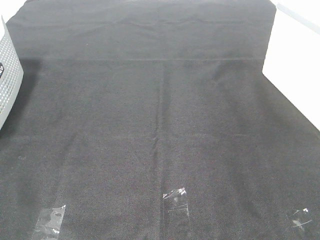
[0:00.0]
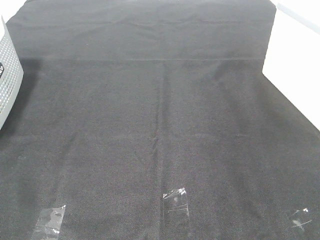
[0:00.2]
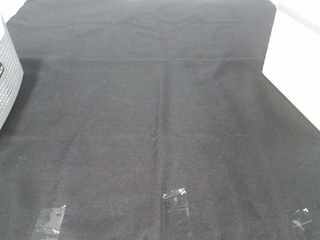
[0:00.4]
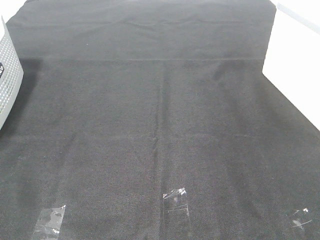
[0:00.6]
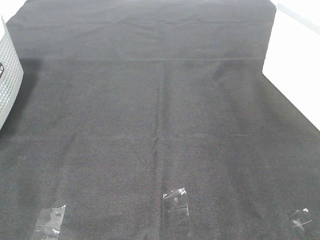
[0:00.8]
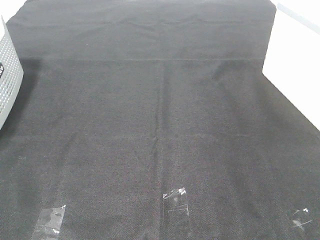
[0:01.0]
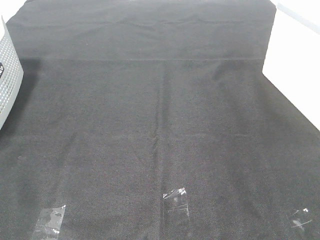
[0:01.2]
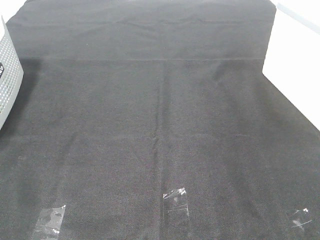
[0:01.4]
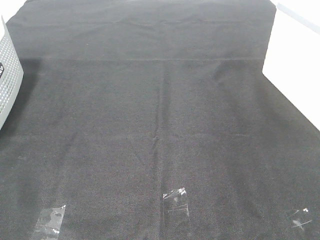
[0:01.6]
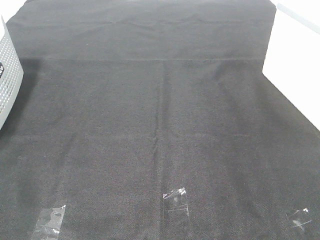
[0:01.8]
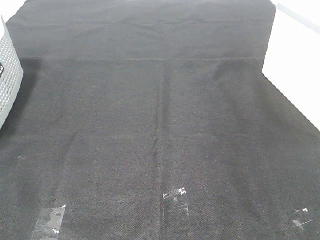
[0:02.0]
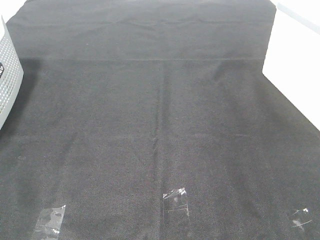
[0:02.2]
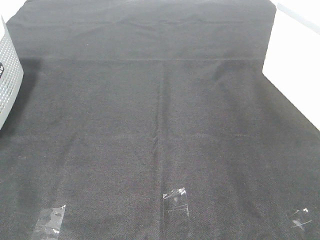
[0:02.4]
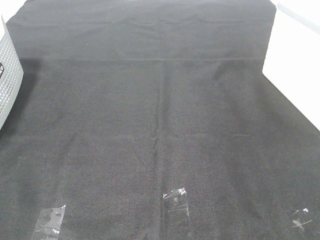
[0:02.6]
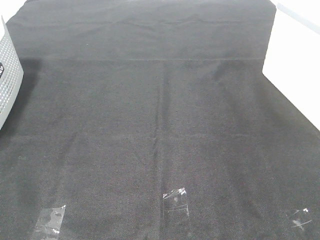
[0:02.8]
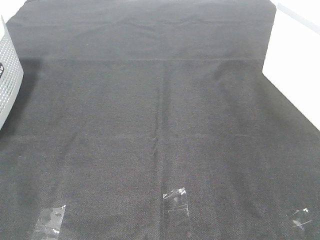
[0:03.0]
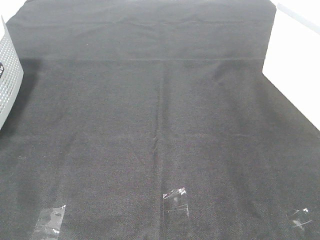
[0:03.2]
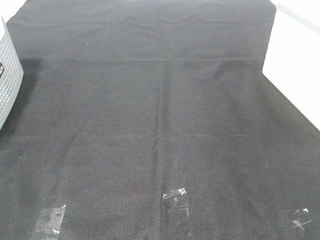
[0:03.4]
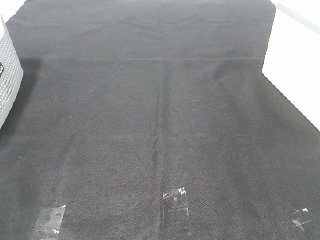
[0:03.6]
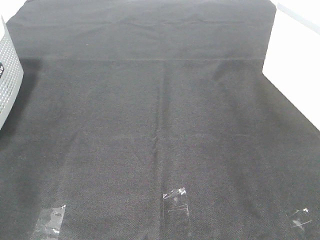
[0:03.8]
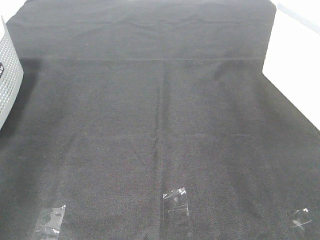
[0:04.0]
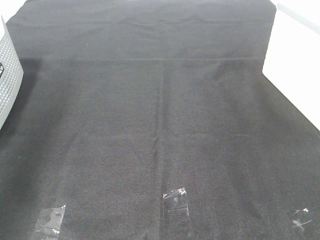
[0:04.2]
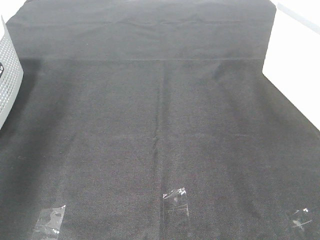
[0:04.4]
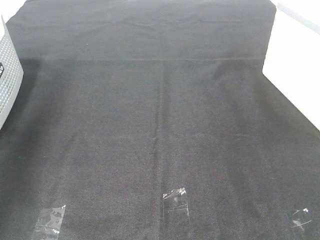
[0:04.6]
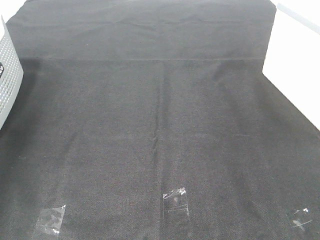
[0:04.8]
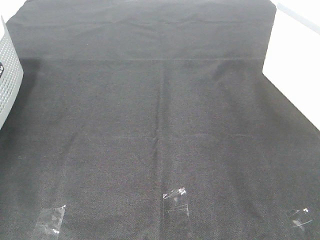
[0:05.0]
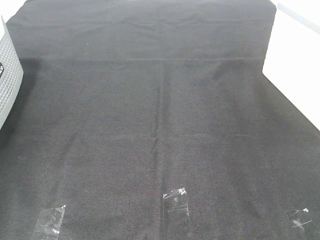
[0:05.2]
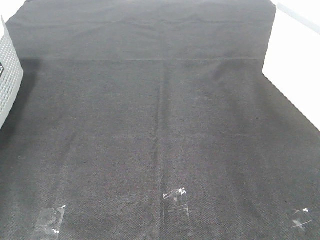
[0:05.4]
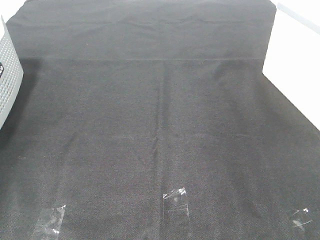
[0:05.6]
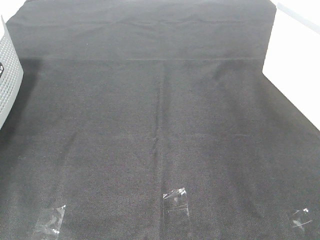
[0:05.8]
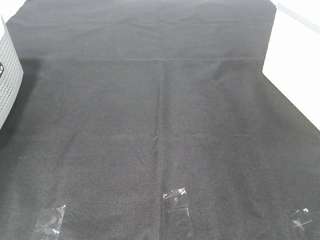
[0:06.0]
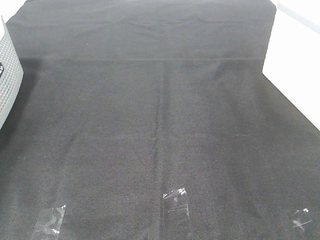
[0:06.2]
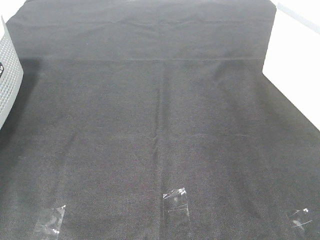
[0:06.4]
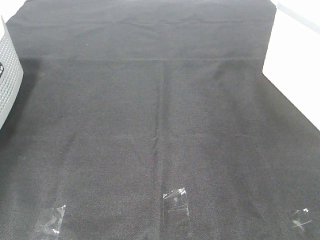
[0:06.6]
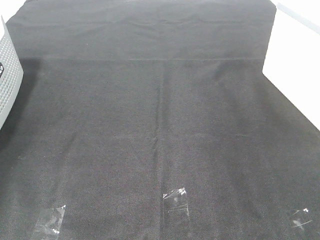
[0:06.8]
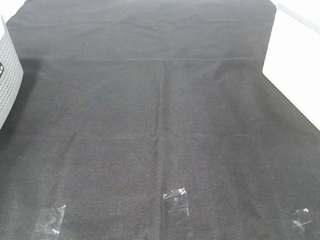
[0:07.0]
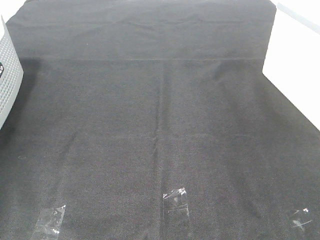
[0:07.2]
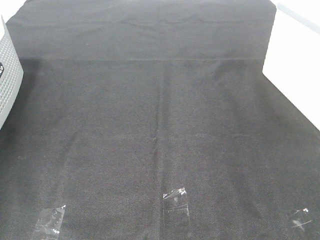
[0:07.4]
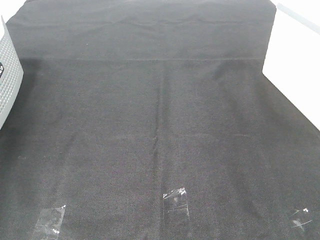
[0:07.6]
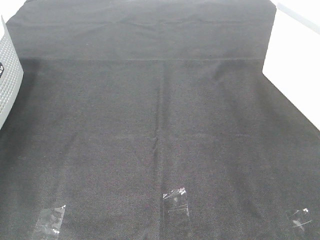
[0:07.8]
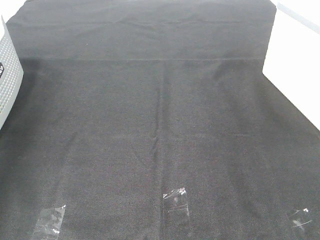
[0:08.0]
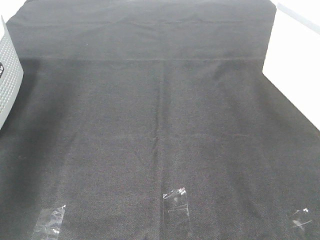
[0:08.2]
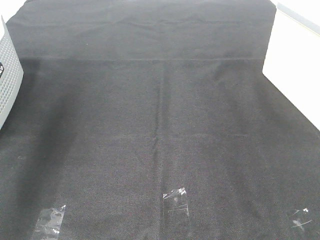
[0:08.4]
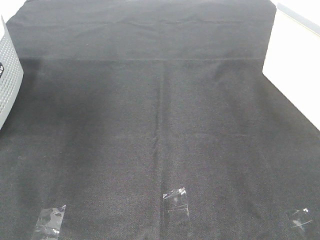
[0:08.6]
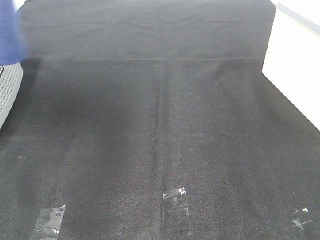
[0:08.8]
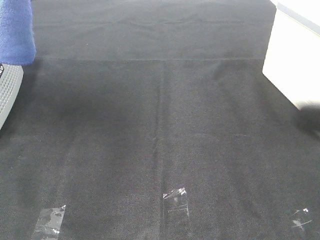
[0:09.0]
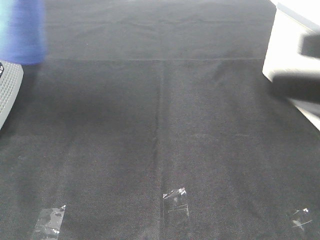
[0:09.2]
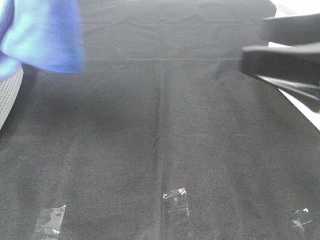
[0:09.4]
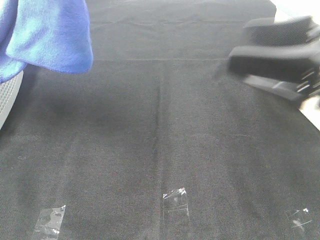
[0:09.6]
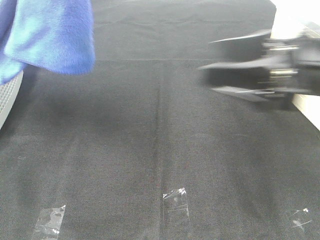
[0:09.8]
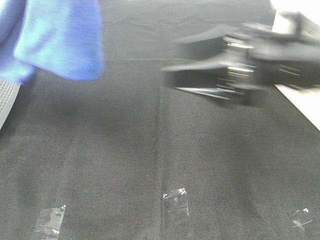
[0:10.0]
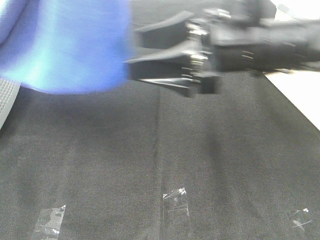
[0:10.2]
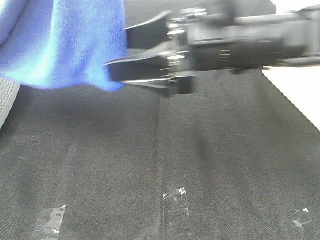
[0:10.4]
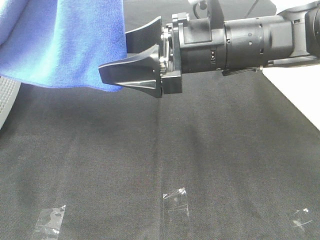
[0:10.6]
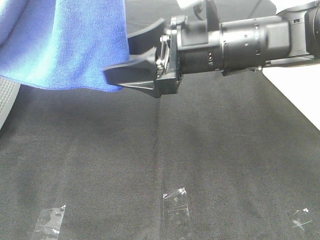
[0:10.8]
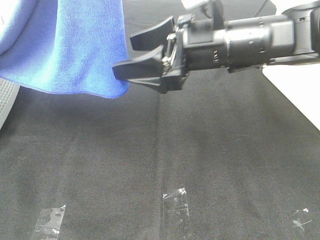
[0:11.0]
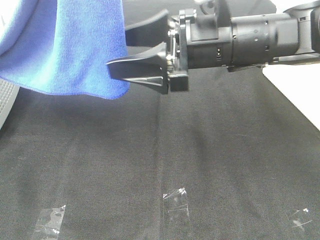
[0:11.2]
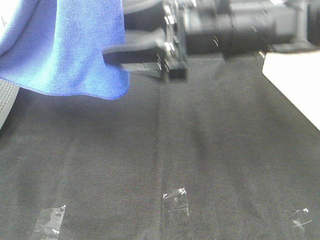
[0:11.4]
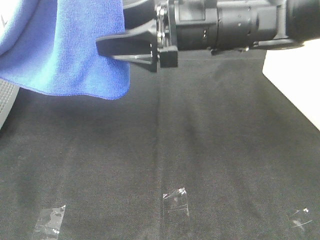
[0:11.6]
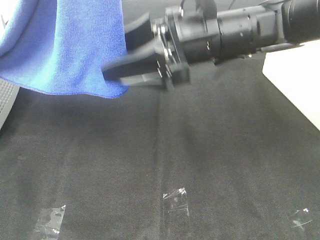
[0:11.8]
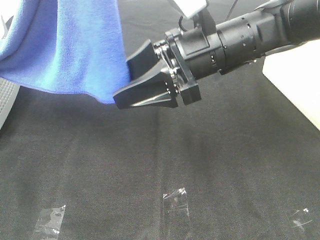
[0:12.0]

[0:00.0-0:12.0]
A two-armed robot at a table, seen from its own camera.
Task of the whole recording: Remove the towel and place it.
0:00.0 to 0:03.0: Both grippers stay put.
0:03.0 to 0:04.4: The left gripper travels forward and upward by some 30 cm.
0:04.4 to 0:06.0: The left gripper shifts about 35 cm downward, forward and to the left.
0:07.6 to 0:09.0: The left gripper shifts roughly 30 cm to the right, upward and backward; the right gripper goes approximately 10 cm forward.
0:09.0 to 0:10.4: The right gripper is displaced forward and to the left by about 25 cm.

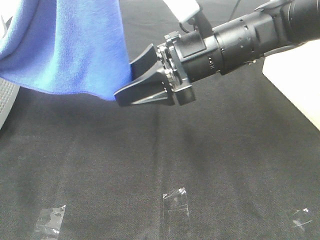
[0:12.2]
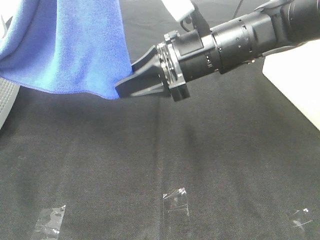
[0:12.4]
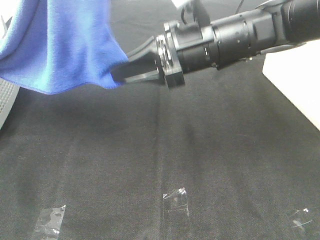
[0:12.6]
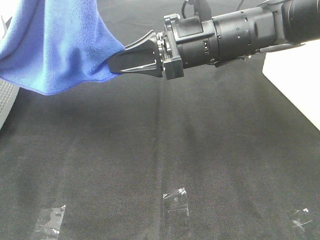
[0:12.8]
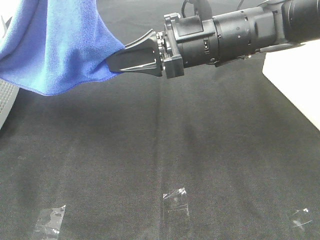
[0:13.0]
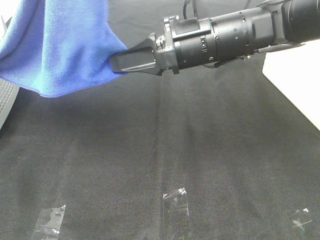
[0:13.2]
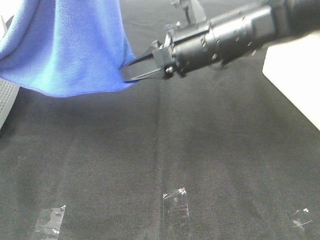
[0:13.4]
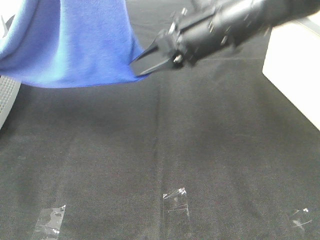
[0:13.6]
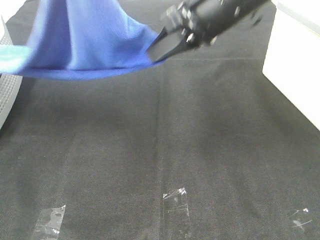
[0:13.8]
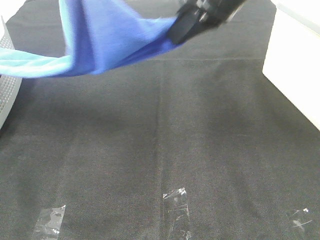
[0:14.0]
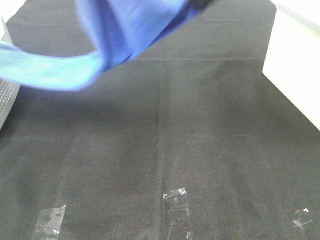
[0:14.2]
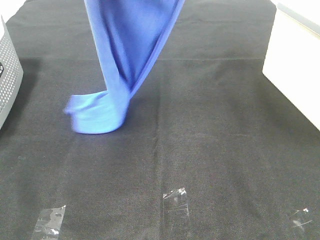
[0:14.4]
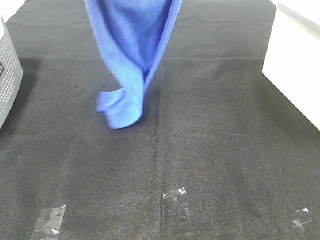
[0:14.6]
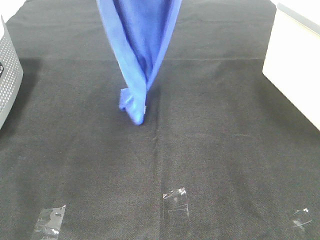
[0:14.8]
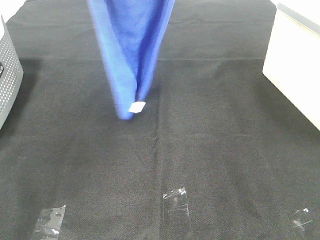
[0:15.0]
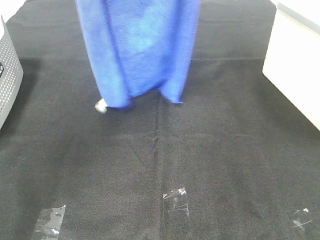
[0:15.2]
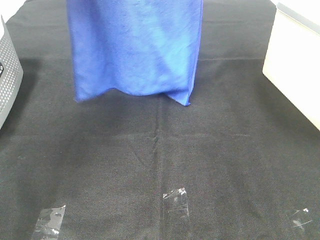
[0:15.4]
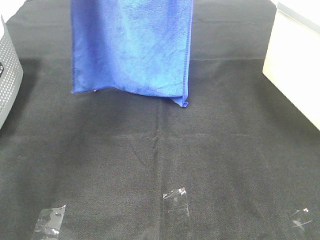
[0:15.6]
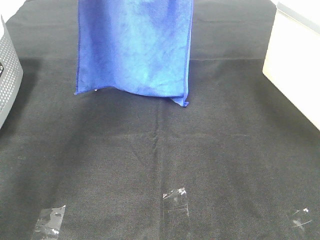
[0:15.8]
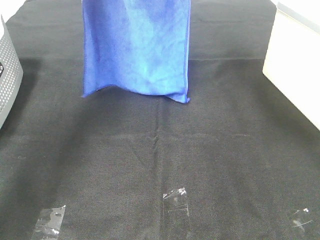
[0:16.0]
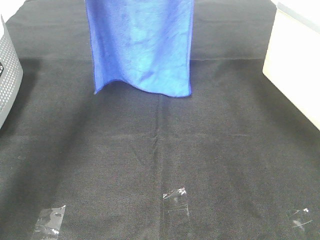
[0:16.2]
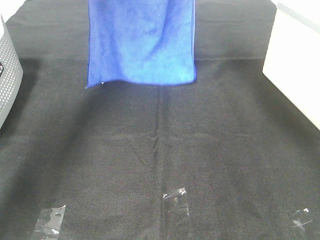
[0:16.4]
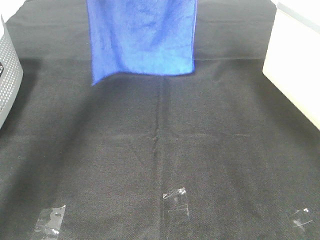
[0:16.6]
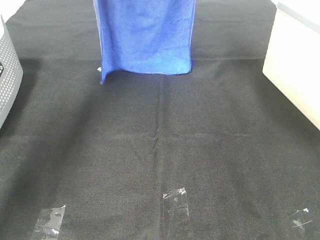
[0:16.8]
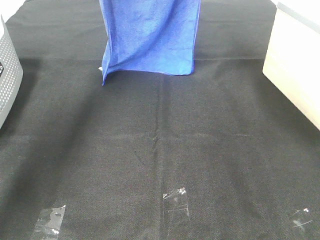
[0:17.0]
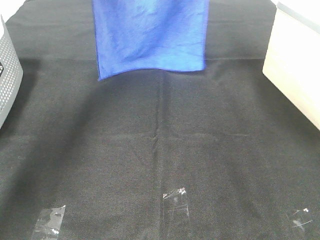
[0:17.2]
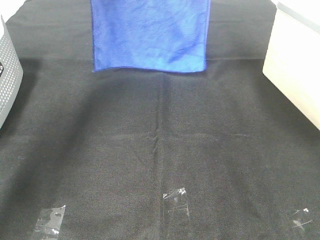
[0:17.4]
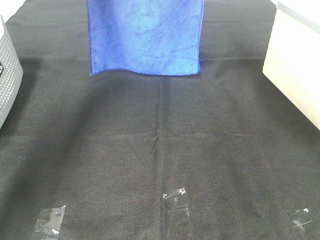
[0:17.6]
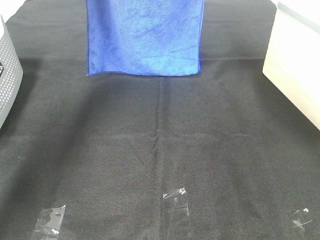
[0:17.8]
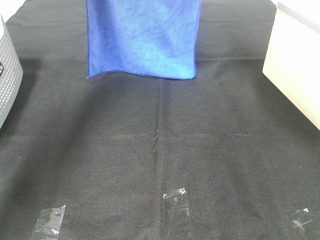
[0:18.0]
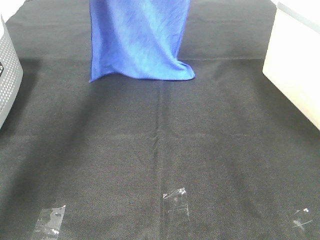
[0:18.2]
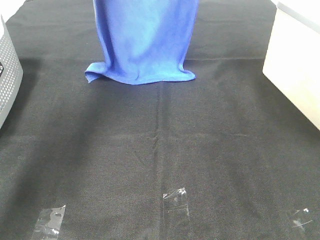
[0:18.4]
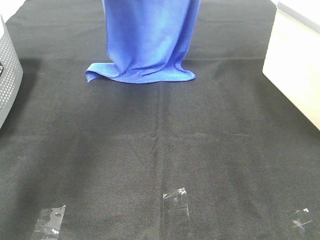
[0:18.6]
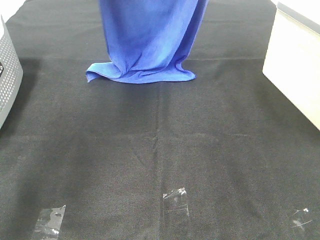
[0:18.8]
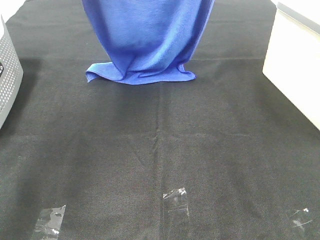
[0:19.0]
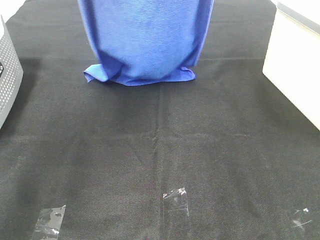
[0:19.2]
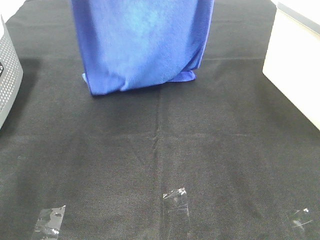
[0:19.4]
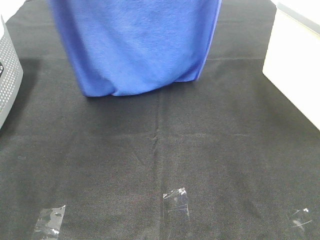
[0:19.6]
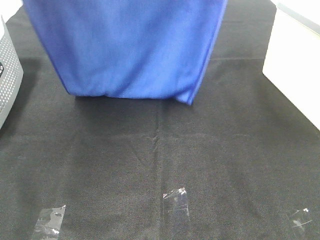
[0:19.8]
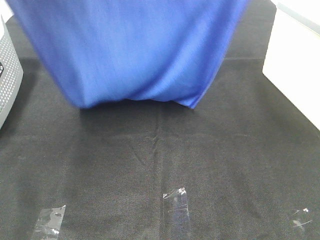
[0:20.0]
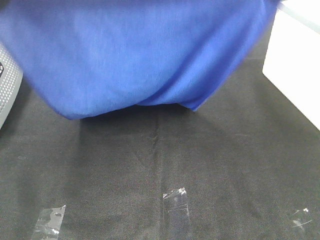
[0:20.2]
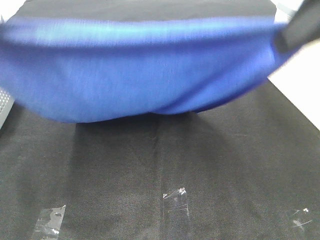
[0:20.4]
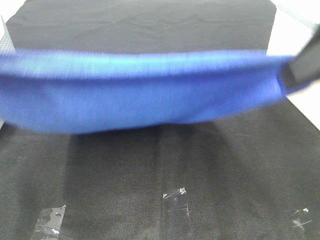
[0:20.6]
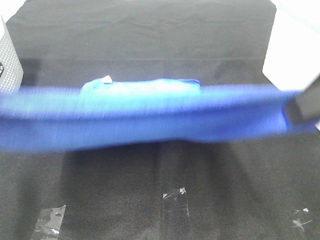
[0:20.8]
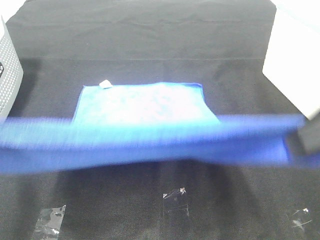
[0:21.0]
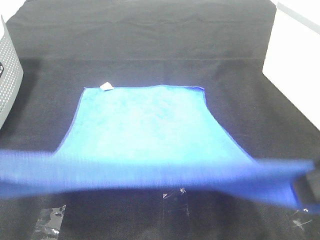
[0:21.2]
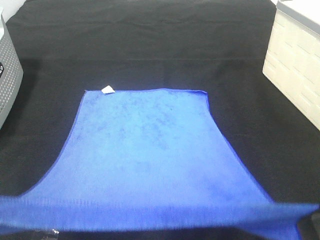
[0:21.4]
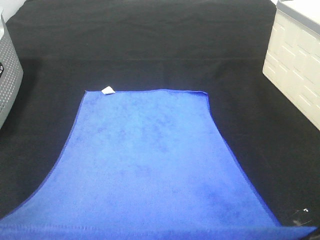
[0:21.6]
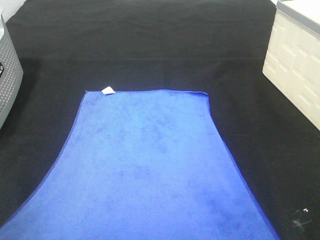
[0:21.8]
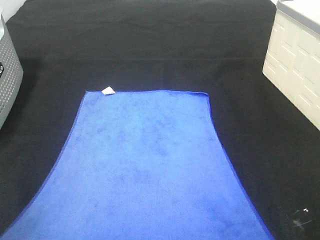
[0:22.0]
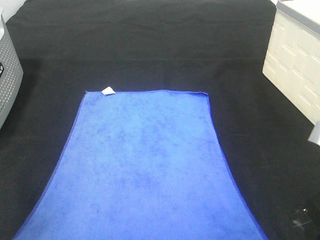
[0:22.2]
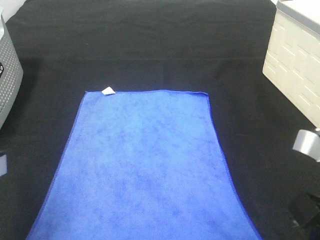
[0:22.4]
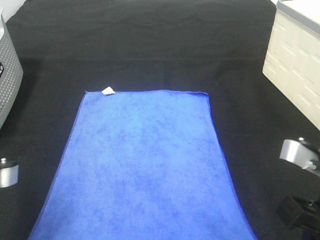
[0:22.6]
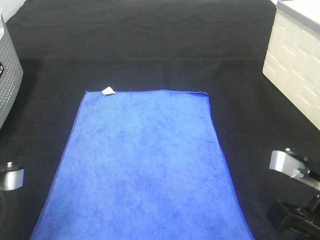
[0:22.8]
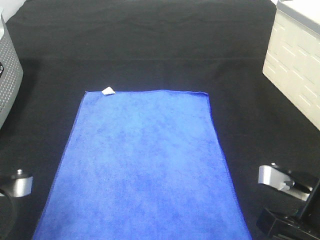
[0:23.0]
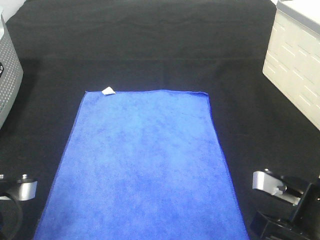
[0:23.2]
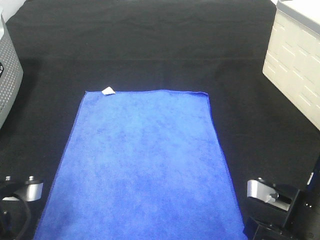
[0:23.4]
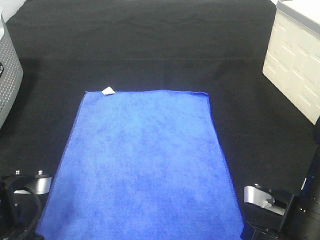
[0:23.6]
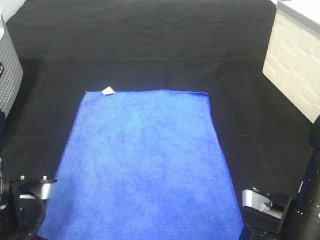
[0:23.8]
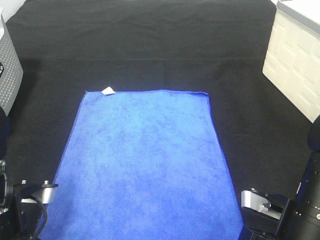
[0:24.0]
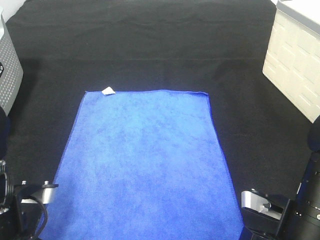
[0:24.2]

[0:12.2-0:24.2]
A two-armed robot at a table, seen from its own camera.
Task of the whole recording: Remove the towel and place it.
Step, 0:13.4 to 0:19.8: Left hand: spread the blue towel flat on the table.
Step, 0:13.4 to 0:19.8: Right hand: spread the blue towel flat on the table.
0:12.2 to 0:13.8: The right gripper is displaced upward by some 10 cm, and closes.
0:13.8 to 0:15.2: The left gripper is displaced forward and to the left by some 15 cm. The right gripper goes approximately 20 cm upward.
0:15.2 to 0:16.6: Both grippers travel together forward, about 15 cm.
0:16.6 to 0:18.2: The grippers stay close to where they were, moving slightly.
0:18.2 to 0:19.8: The grippers both shift backward by approximately 20 cm.
0:19.8 to 0:21.2: Both grippers travel together backward and downward, roughly 25 cm.
0:21.2 to 0:22.6: Both grippers travel together downward, roughly 10 cm.
0:22.6 to 0:24.2: Both grippers travel together downward, some 10 cm.
